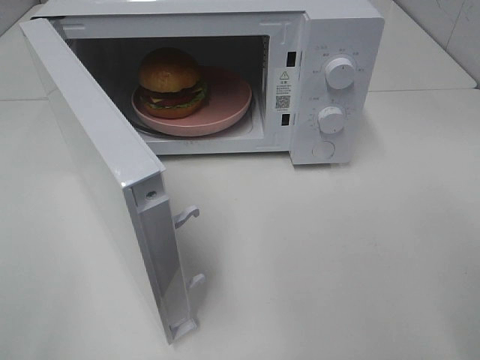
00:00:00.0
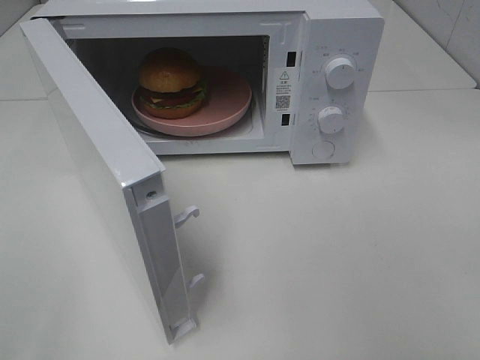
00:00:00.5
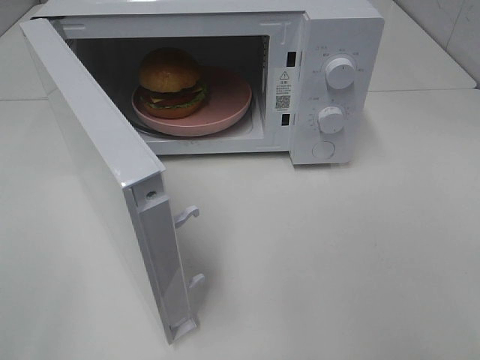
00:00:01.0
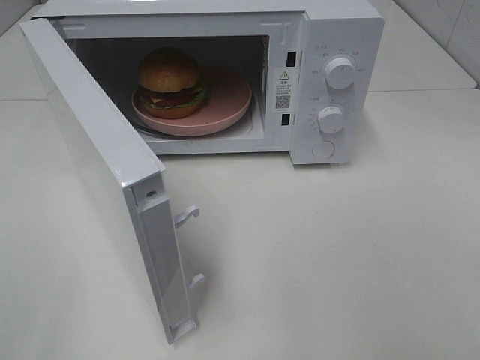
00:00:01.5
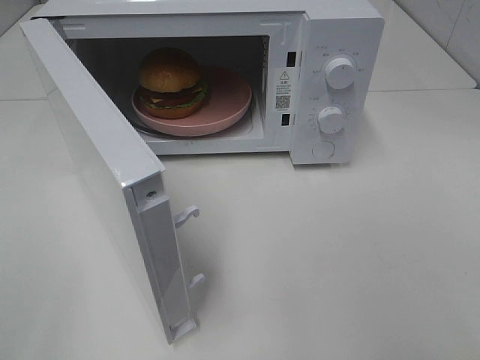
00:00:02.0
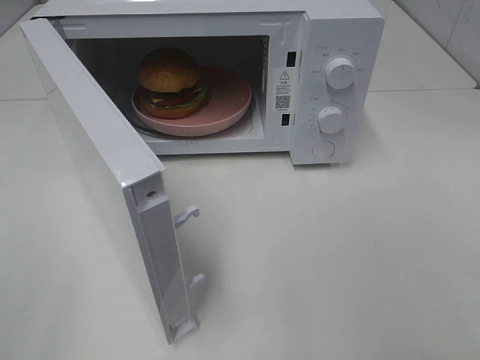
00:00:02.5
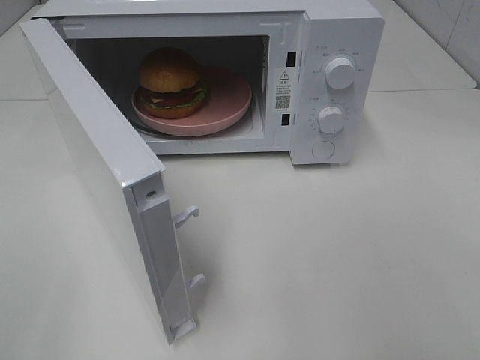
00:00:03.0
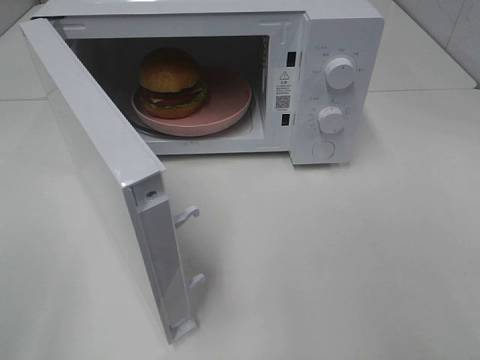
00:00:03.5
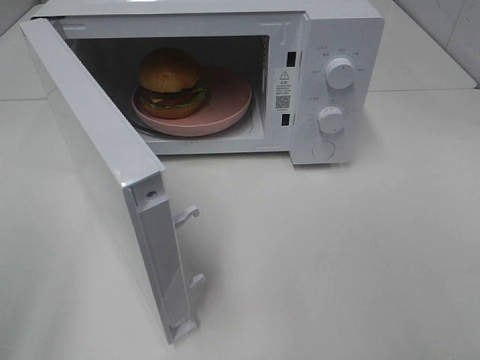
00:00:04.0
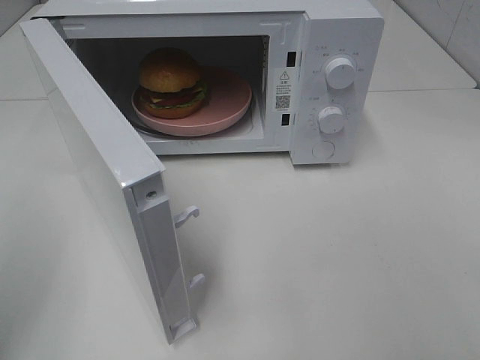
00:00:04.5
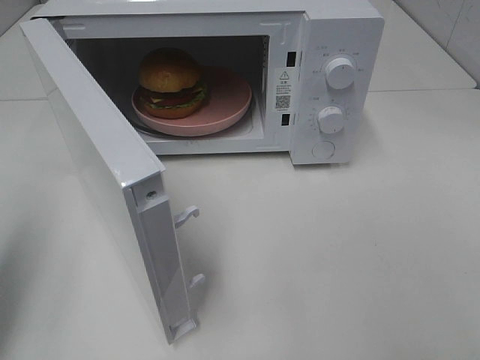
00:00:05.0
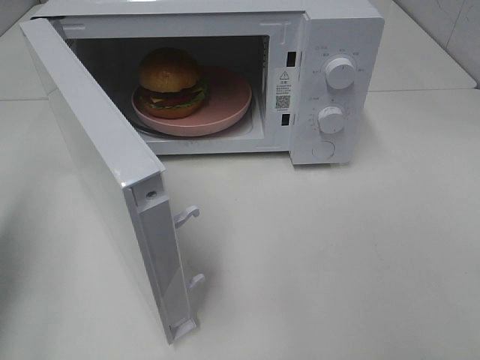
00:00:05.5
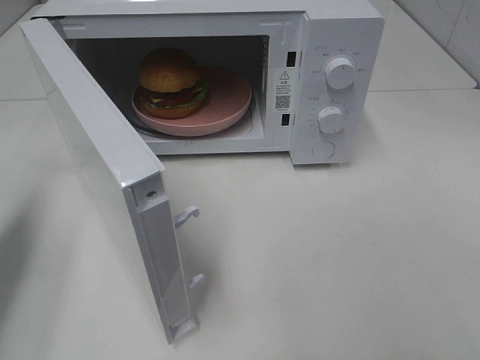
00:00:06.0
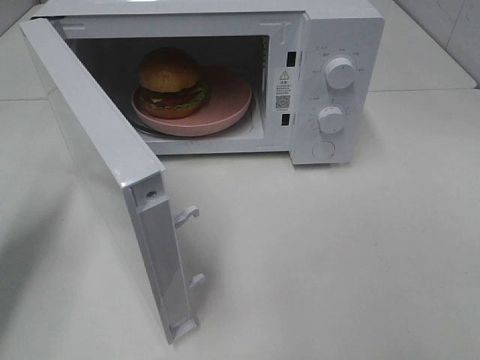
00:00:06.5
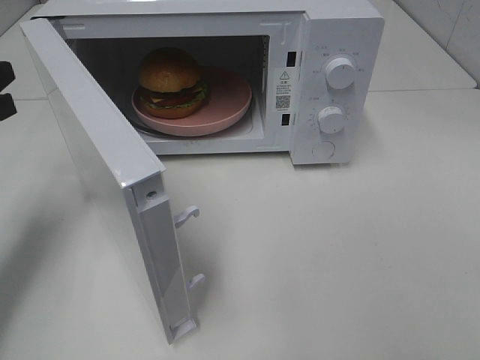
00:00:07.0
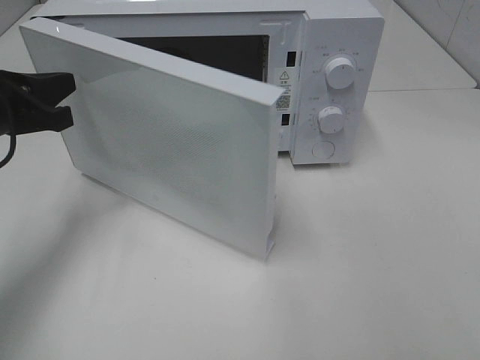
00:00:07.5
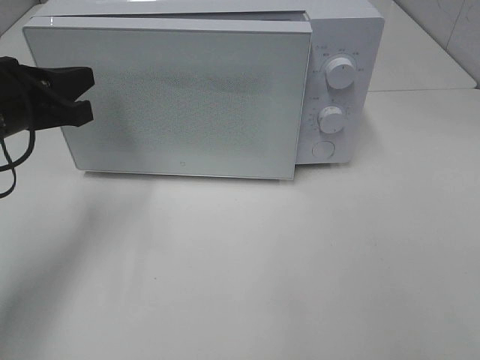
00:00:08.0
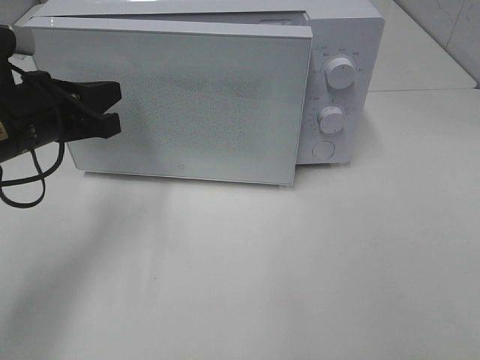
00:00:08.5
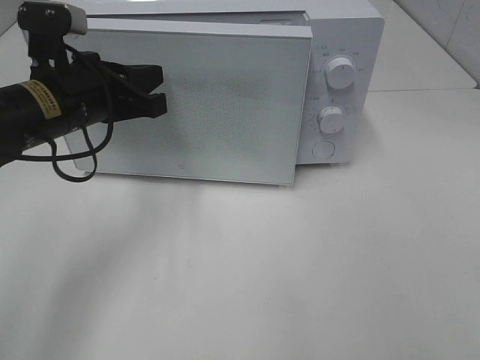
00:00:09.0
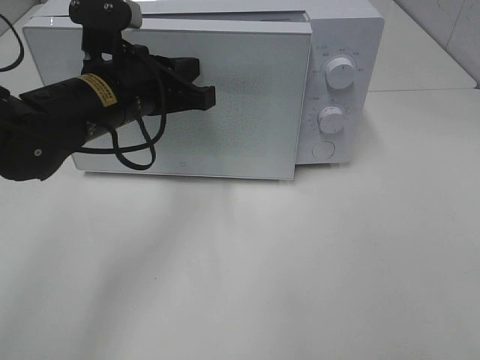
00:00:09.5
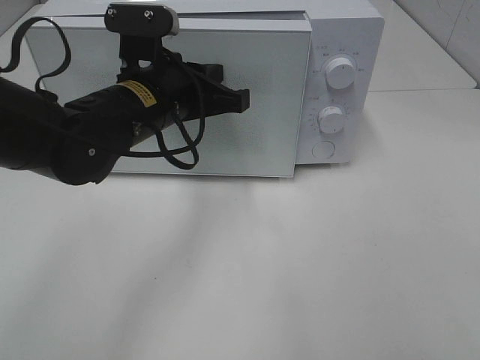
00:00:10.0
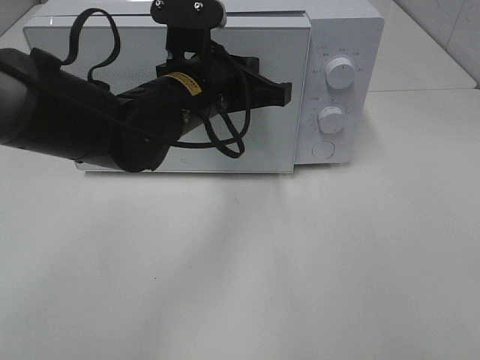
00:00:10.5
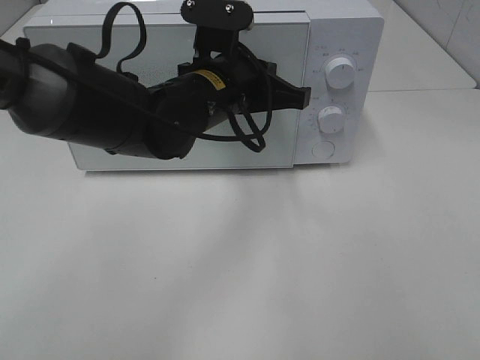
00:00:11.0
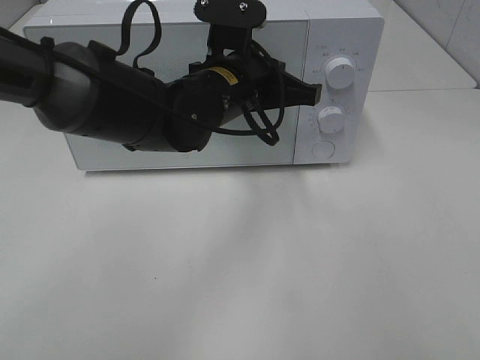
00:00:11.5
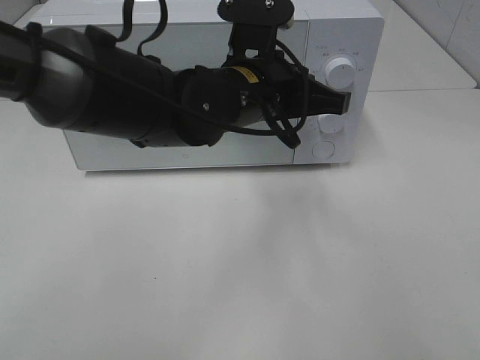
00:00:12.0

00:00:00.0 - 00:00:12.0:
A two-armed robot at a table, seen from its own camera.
Task of the whole recording: Heat the burger.
Step, 00:00:00.0 - 00:00:11.0: Left hand: close the microwave door.
00:00:04.0 - 00:00:06.0: The left gripper travels forward and downward by about 20 cm, and closes.
00:00:06.0 - 00:00:08.0: The left gripper shifts approximately 15 cm to the right and forward.
00:00:08.0 - 00:00:10.0: The left gripper goes roughly 15 cm to the right.
00:00:10.0 - 00:00:12.0: The left gripper goes roughly 10 cm to the right.

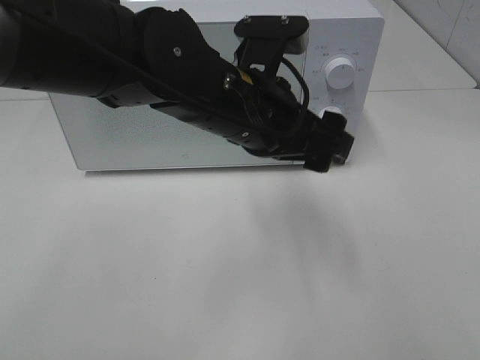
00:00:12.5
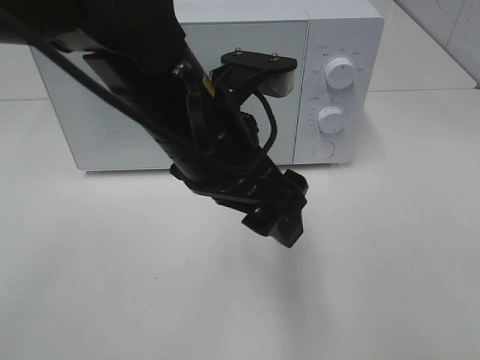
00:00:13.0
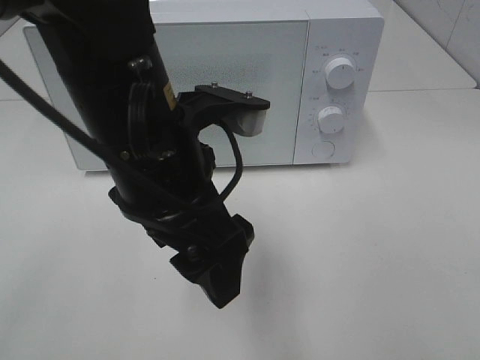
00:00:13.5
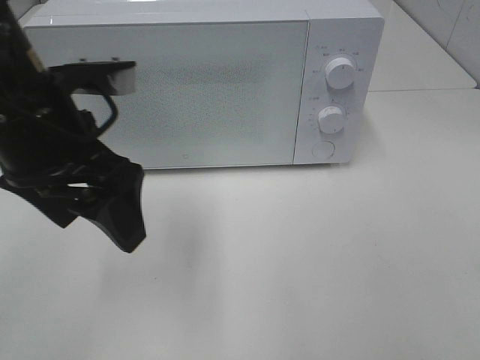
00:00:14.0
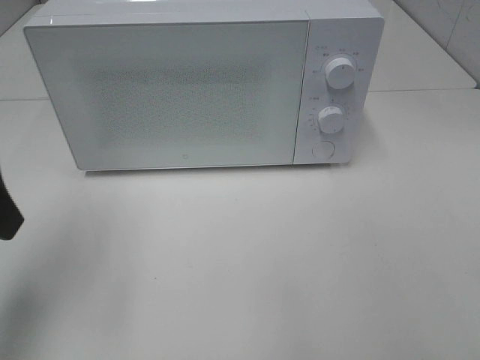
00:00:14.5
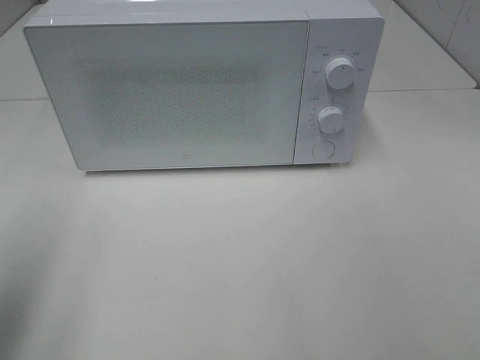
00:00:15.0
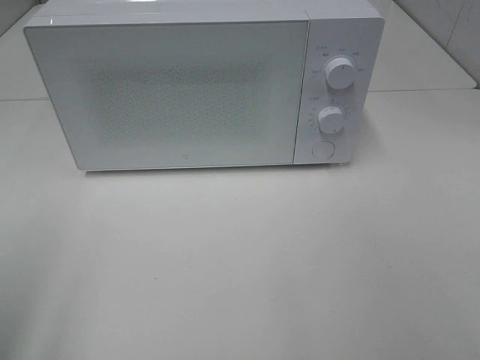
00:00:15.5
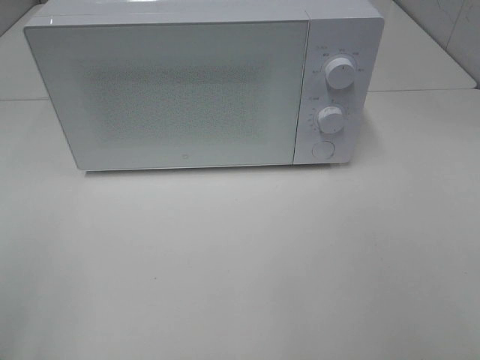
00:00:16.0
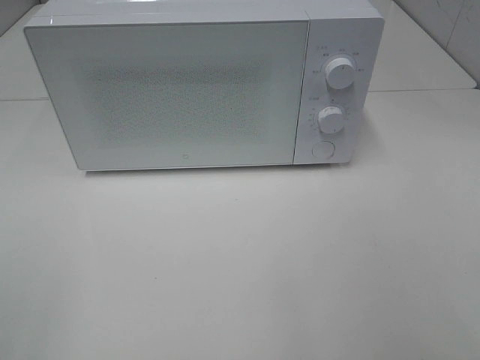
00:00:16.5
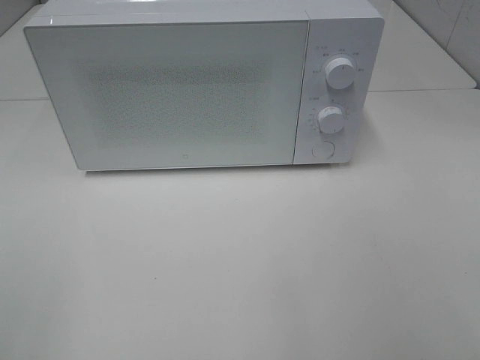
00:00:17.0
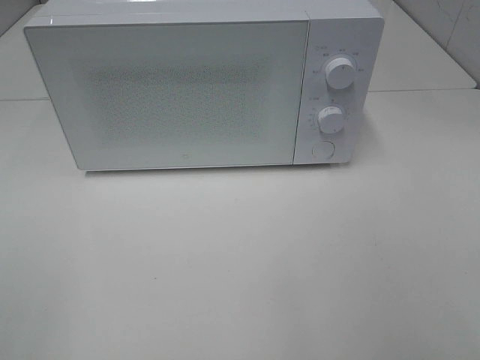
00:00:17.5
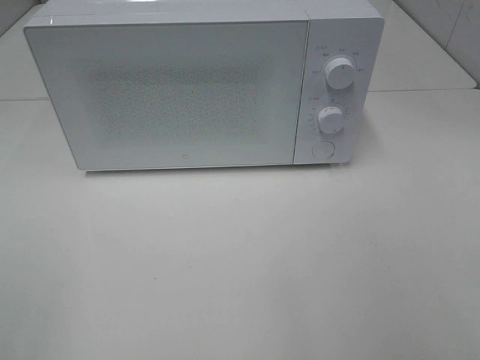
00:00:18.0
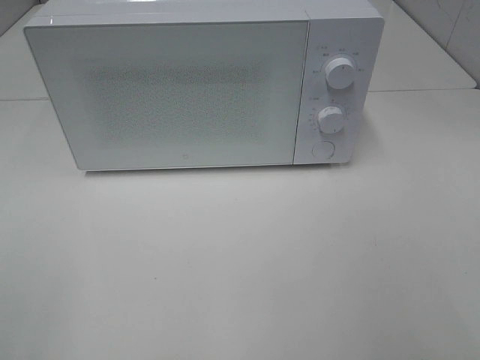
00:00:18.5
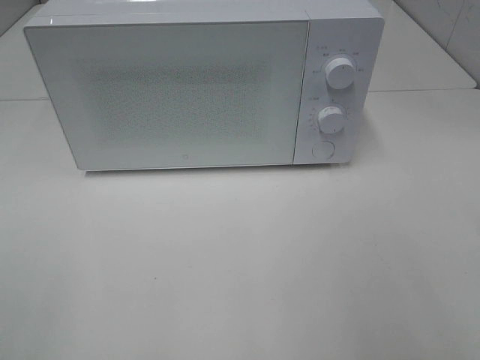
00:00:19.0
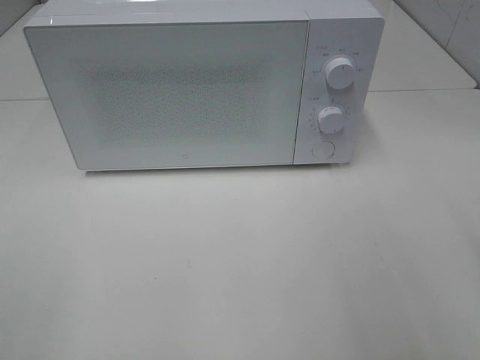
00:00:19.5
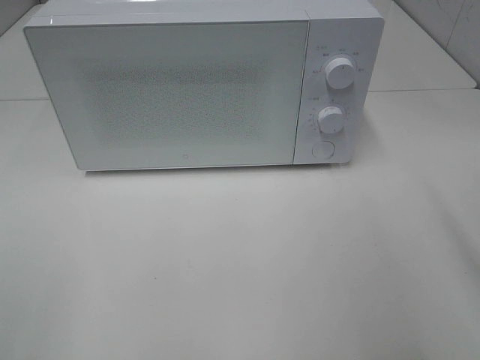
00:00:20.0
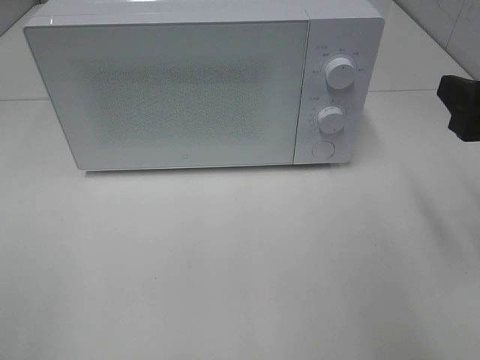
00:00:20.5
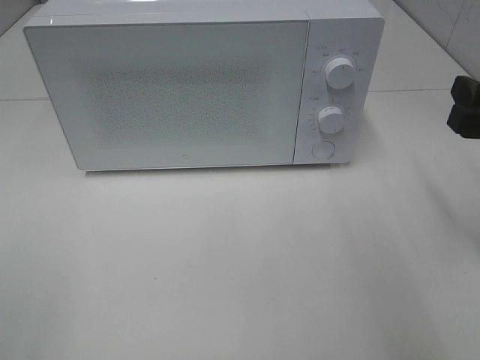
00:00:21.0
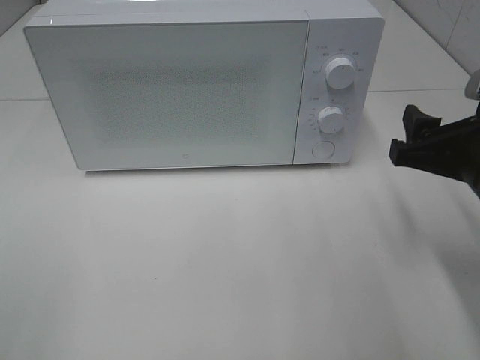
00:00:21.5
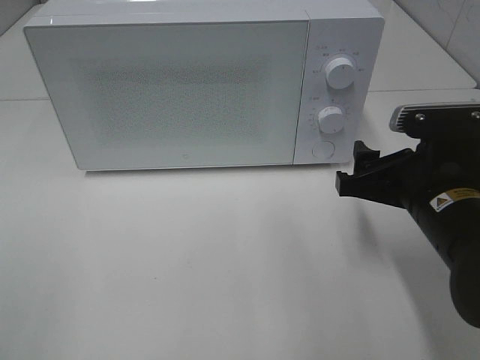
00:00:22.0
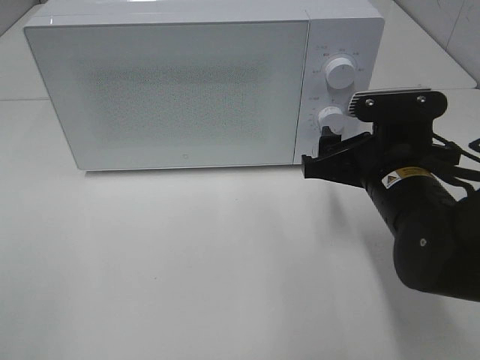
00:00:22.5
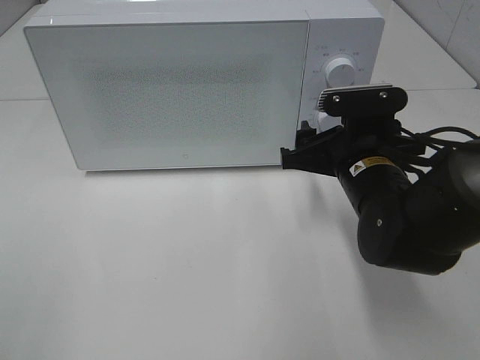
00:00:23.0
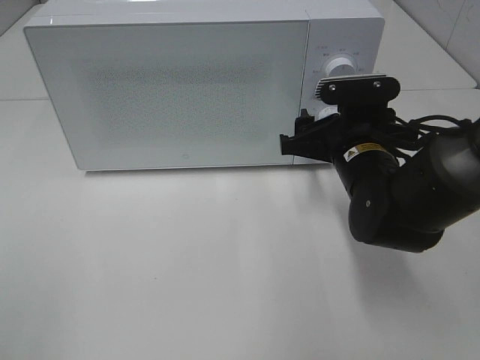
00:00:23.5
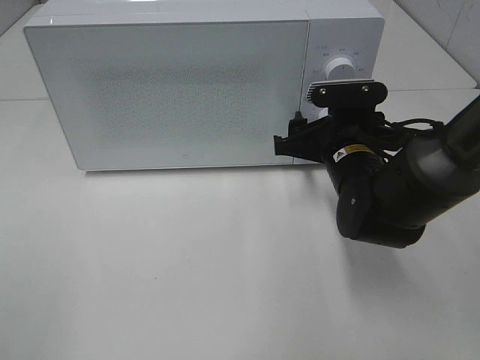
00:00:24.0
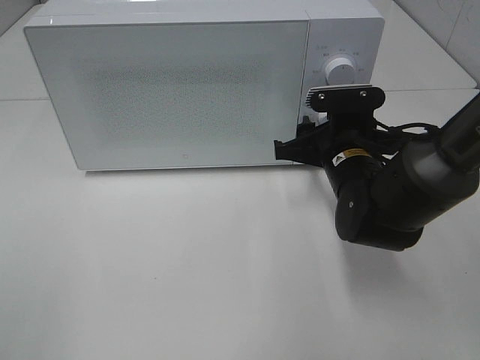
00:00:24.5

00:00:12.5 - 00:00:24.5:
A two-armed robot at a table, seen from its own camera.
Task of the whole recording: Heat the burger.
00:00:12.5 - 00:00:14.5: The left gripper is displaced to the left by roughly 25 cm.
00:00:14.5 - 00:00:16.5: The left gripper heads backward, covering approximately 20 cm.
00:00:18.5 - 00:00:20.5: The right gripper travels forward by about 15 cm.
00:00:20.5 - 00:00:22.5: The right gripper shifts some 15 cm to the left, downward and forward.
00:00:22.5 - 00:00:24.5: The right gripper shifts approximately 5 cm forward.

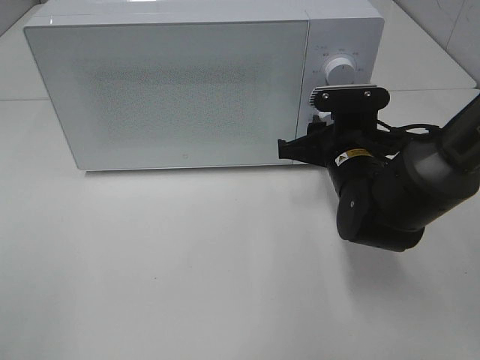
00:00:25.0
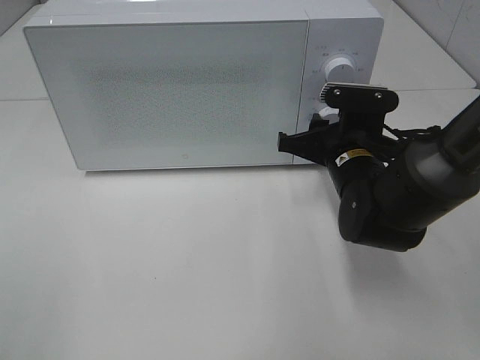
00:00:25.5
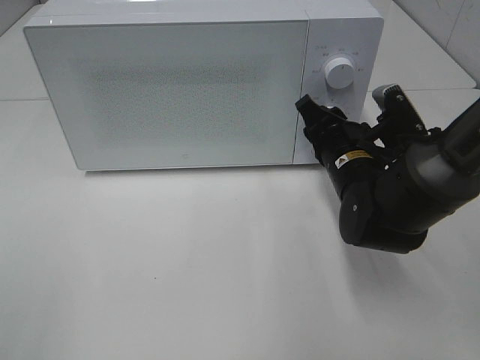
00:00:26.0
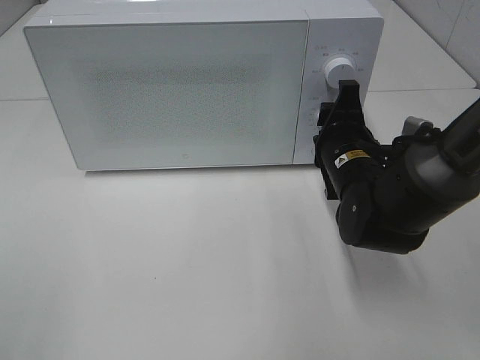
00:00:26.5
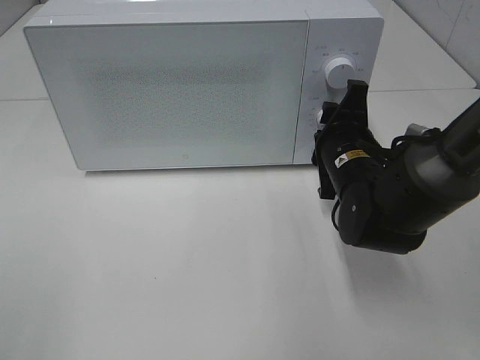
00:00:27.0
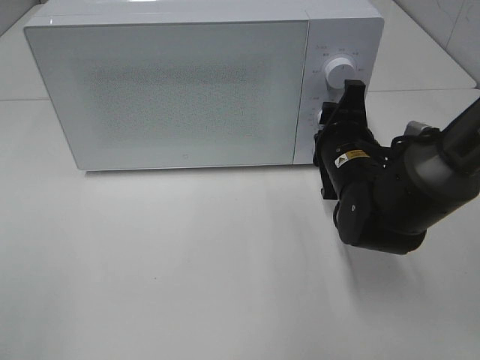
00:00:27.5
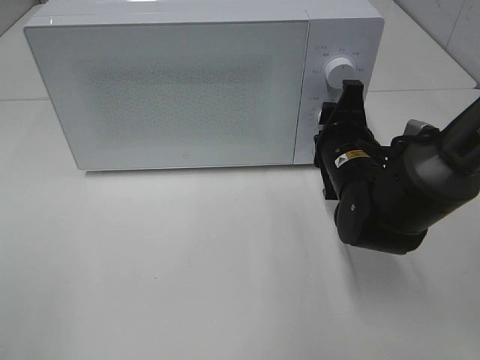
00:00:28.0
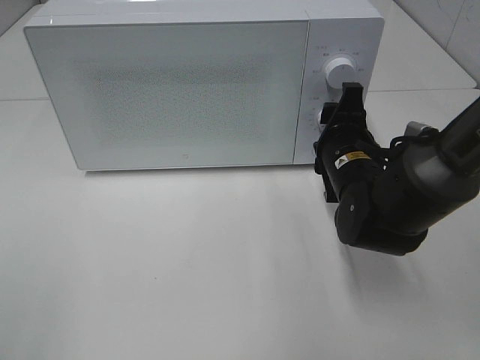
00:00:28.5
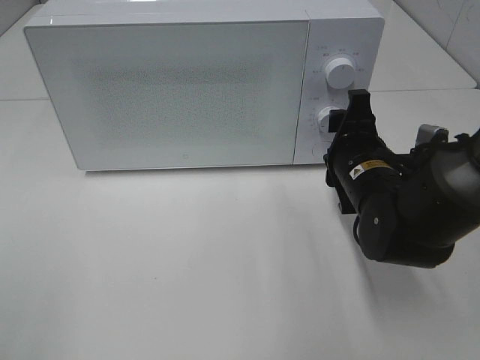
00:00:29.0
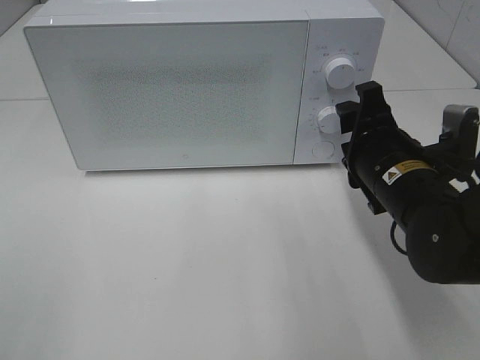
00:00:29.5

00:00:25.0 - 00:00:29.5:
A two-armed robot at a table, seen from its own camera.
Task of the whole recording: Heat the burger.
Step, 00:00:25.0 - 00:00:28.5: Right hand: twist timer button.
00:00:27.0 - 00:00:29.5: The right gripper travels backward by about 5 cm.
